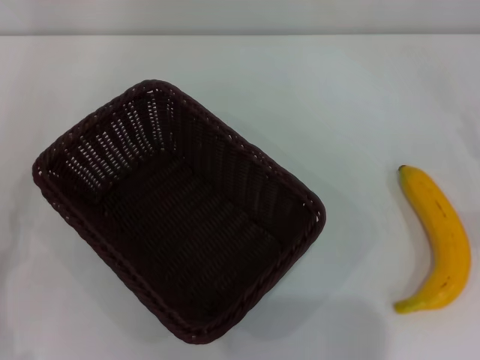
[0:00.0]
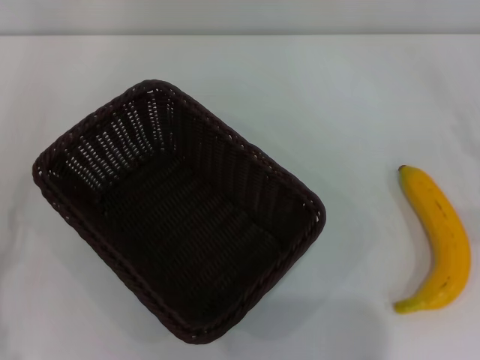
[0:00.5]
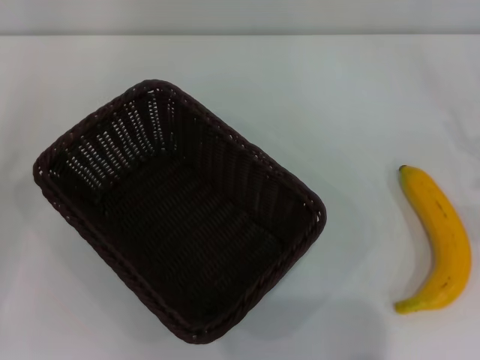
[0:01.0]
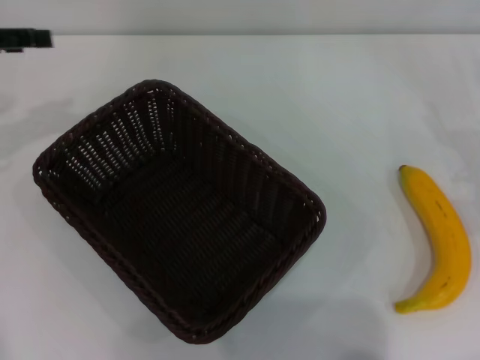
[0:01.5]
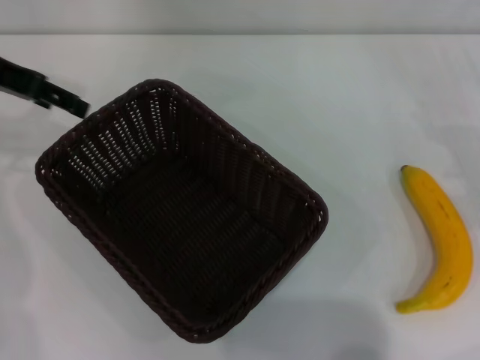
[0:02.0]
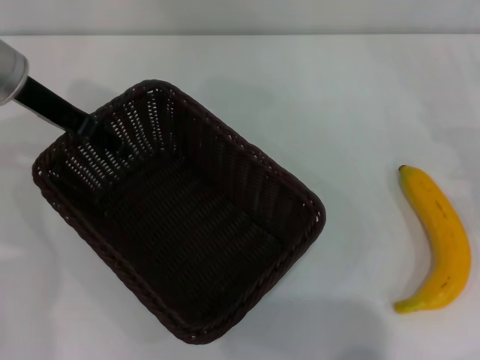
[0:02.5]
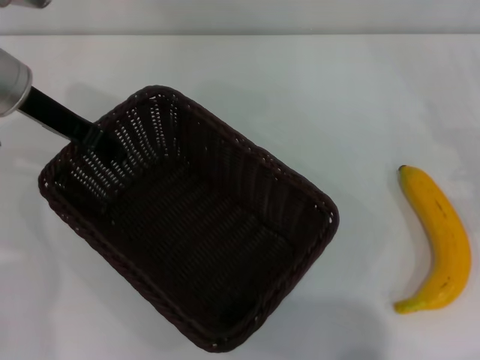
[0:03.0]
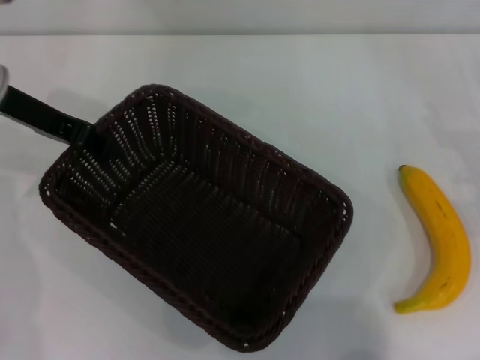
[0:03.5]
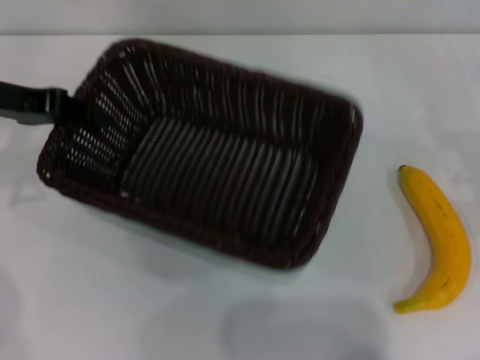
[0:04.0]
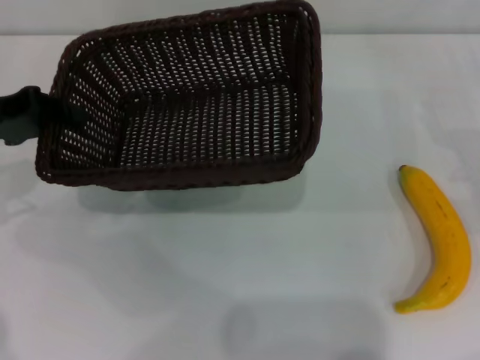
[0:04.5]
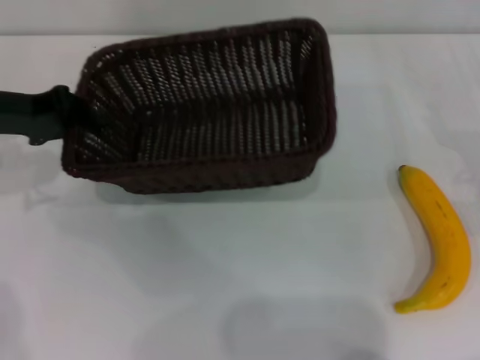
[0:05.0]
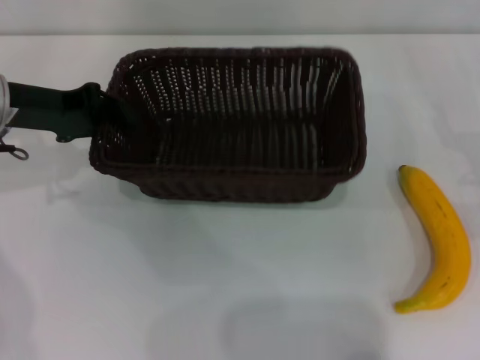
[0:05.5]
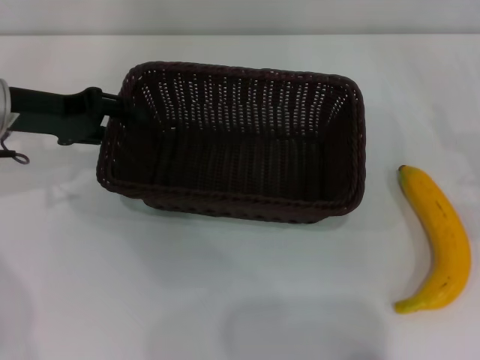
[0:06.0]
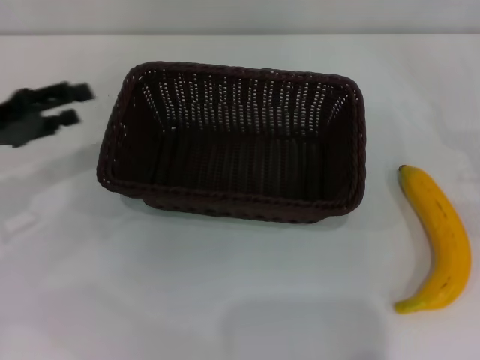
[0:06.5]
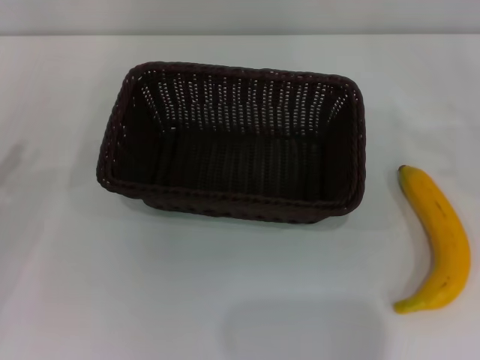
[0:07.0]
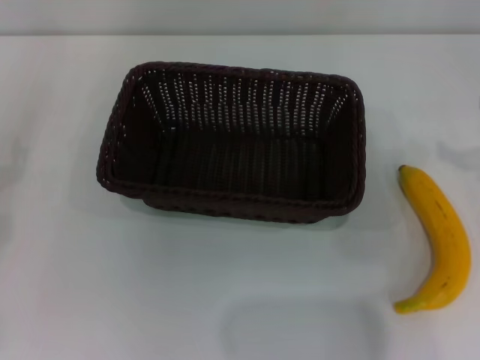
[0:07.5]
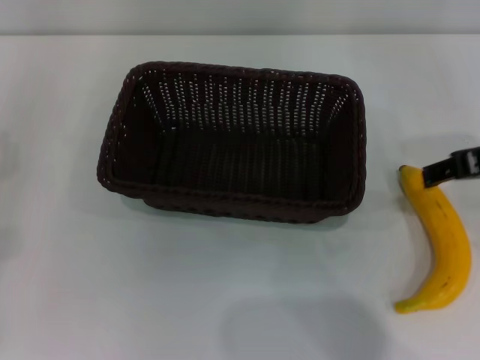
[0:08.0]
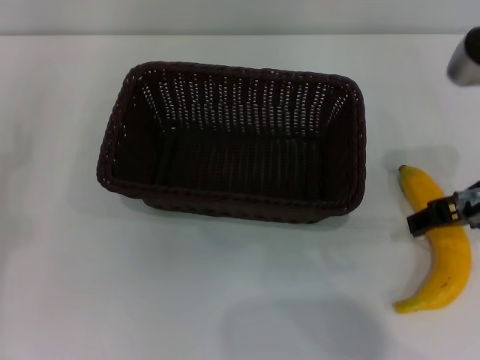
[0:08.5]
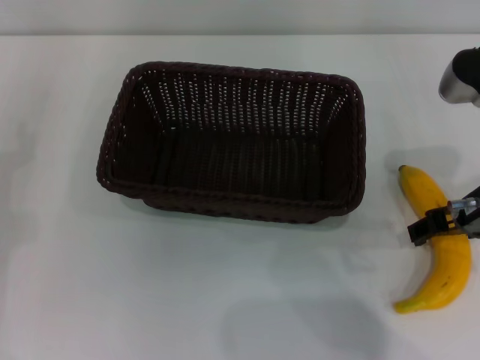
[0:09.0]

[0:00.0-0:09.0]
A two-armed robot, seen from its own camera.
Step, 0.0 to 3.5 s: Pick up the dark basket with the left gripper.
Step, 4.0 to 6.0 s: Place the dark basket in the center of view with the left gripper.
0.0 to 2.0 s: The left gripper shifts about 35 cm forward and upward.
2.0 to 4.5 s: The left gripper moves downward and backward, roughly 10 cm, and closes its fingers.
4.5 to 7.0 s: The right gripper goes approximately 10 cm upward and to the right. The left gripper travels backward, downward and to the left by roughly 15 cm, and opens up.
7.0 to 9.0 s: The right gripper heads to the left, covering about 25 cm.

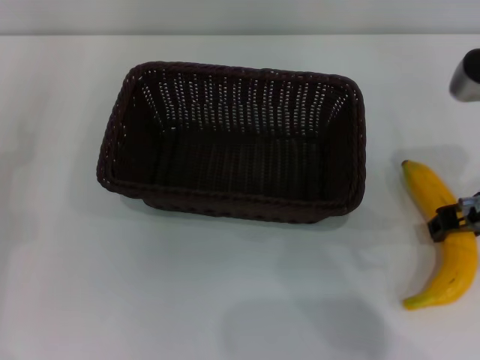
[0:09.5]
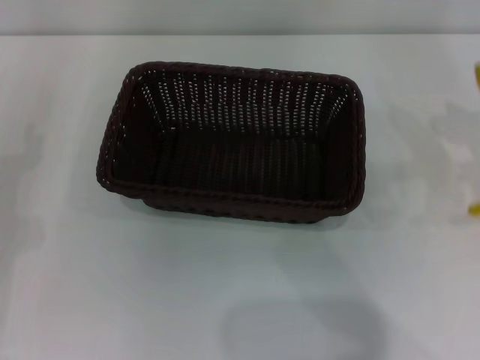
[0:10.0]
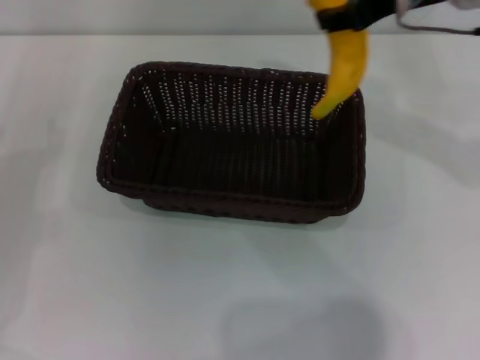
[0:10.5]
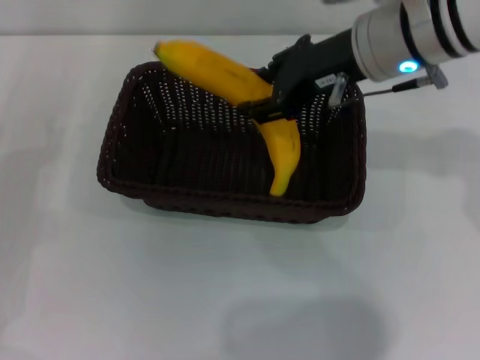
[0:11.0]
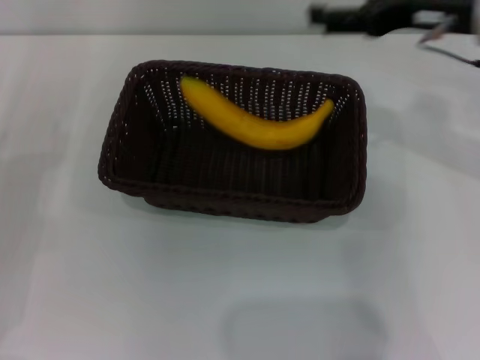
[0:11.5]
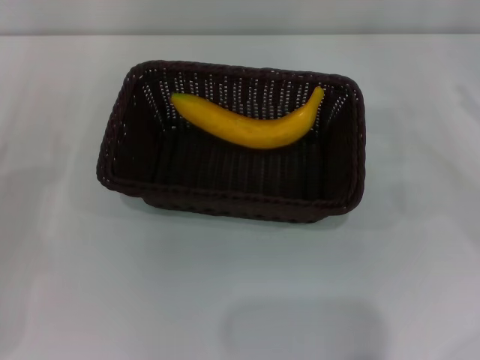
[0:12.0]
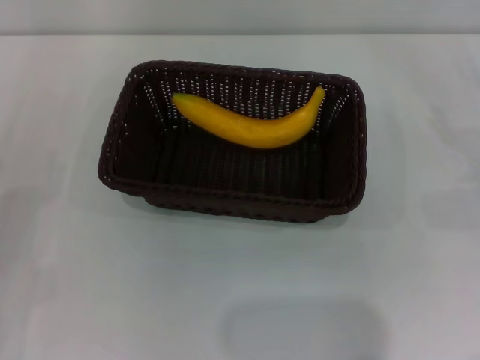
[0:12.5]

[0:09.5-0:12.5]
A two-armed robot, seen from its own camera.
Step, 10.0 to 11.0 s: Place the banana into the dark basket with the right gripper.
9.5 to 11.0 s: The right gripper is displaced to the left, forward and upward by approximately 15 cm.
11.0 to 12.5 s: The left gripper is displaced backward by approximately 5 cm; the right gripper moves to the right and downward, approximately 30 cm, and opens up.

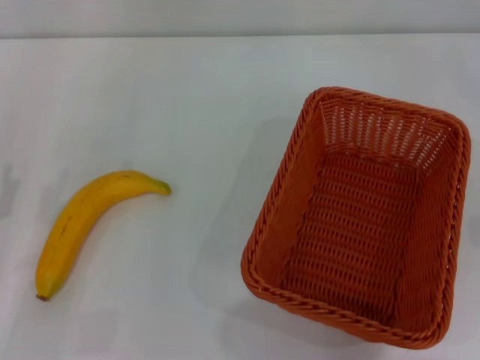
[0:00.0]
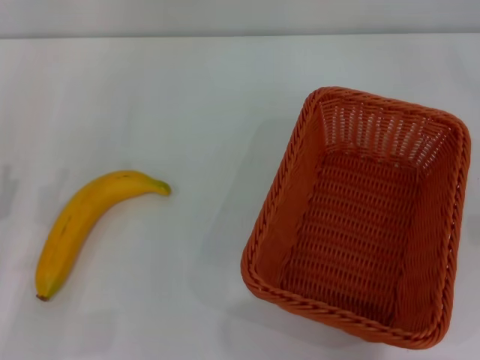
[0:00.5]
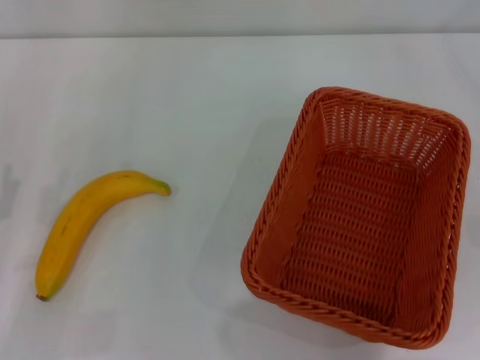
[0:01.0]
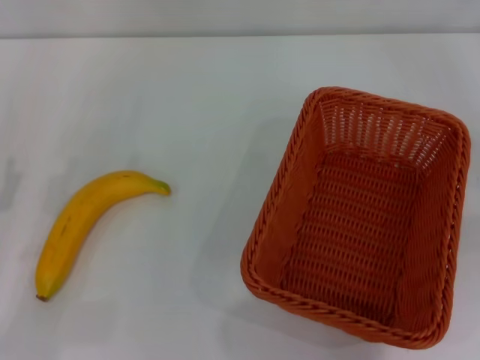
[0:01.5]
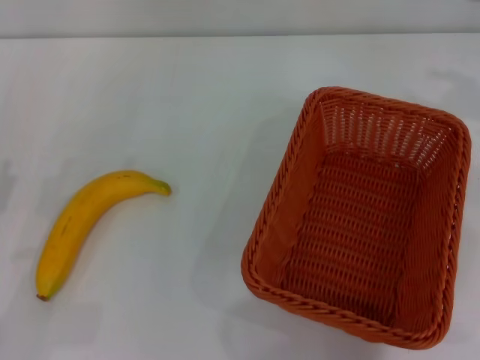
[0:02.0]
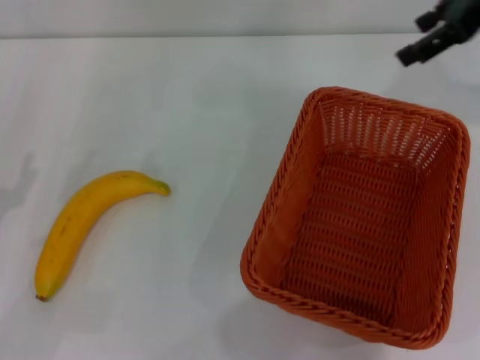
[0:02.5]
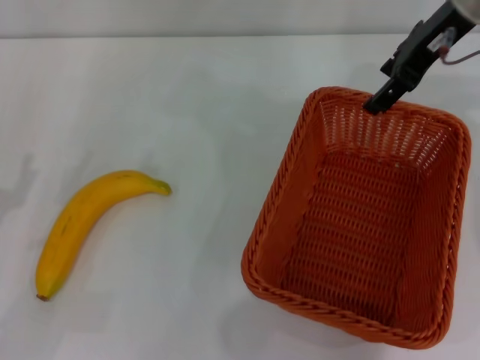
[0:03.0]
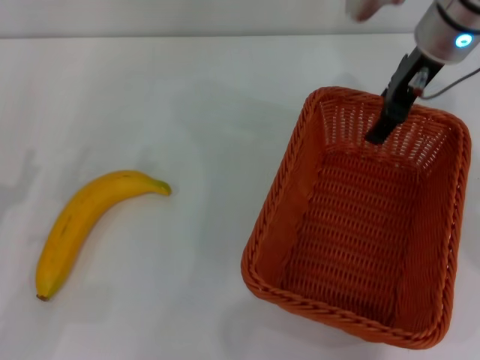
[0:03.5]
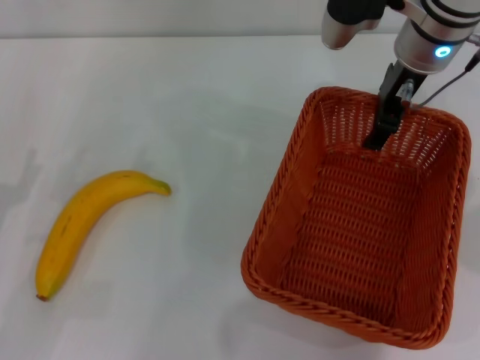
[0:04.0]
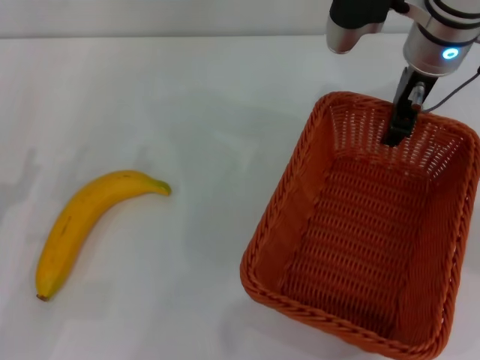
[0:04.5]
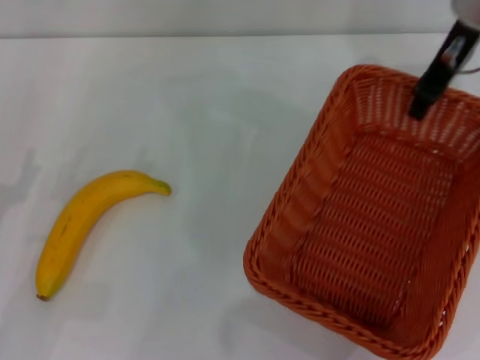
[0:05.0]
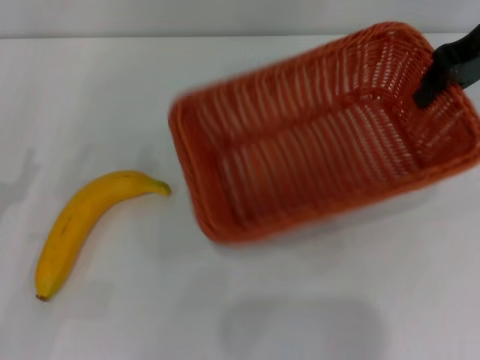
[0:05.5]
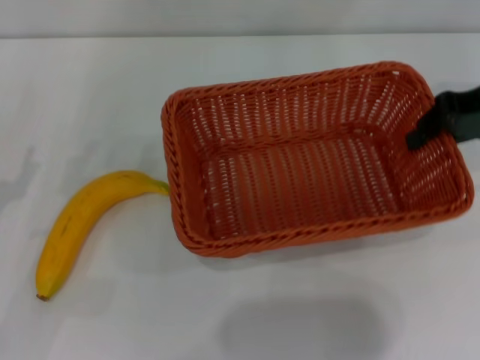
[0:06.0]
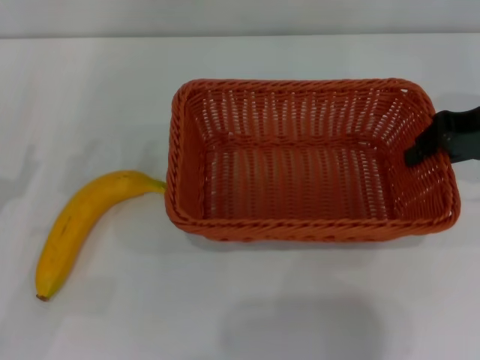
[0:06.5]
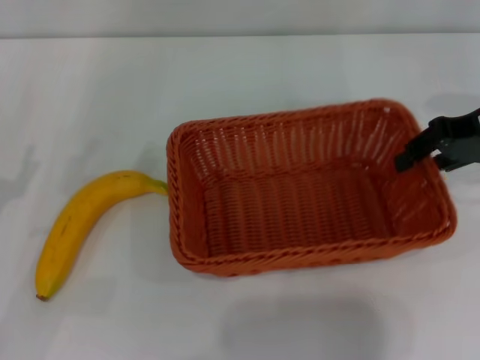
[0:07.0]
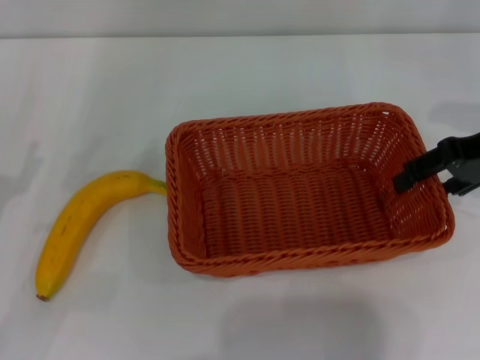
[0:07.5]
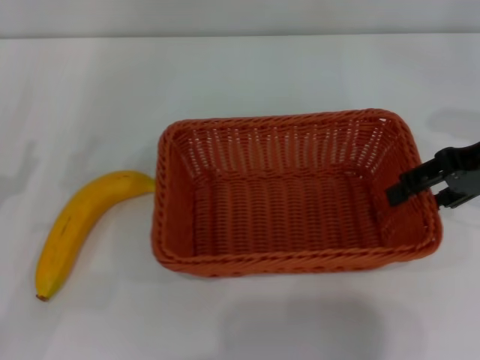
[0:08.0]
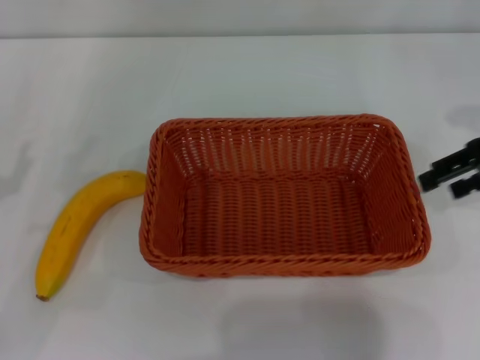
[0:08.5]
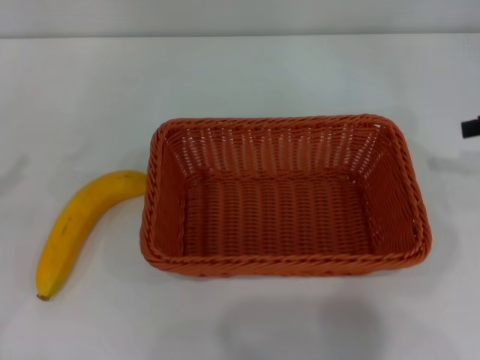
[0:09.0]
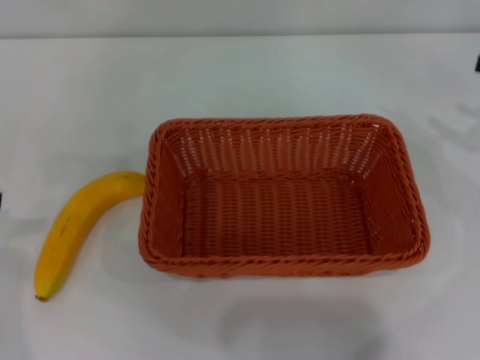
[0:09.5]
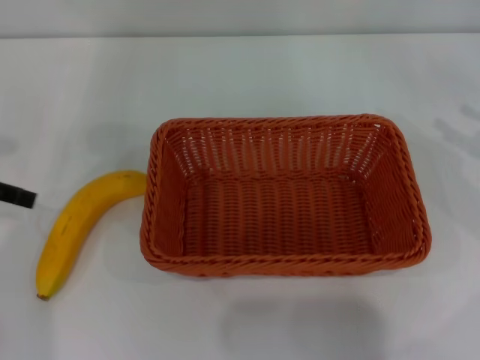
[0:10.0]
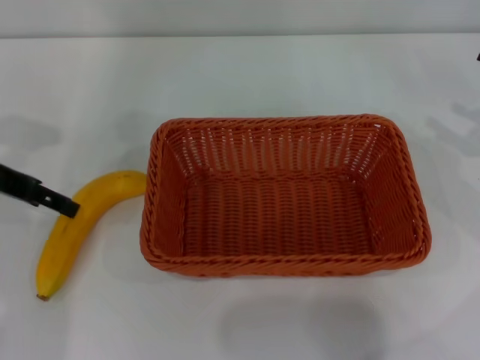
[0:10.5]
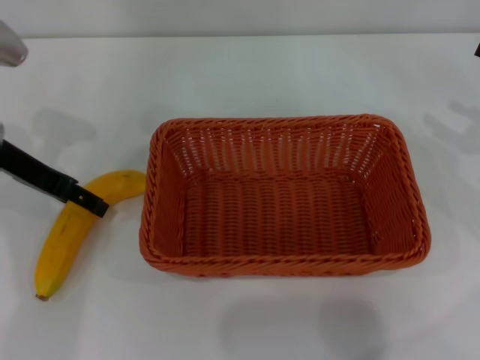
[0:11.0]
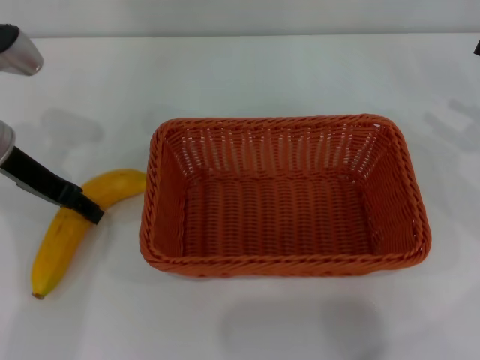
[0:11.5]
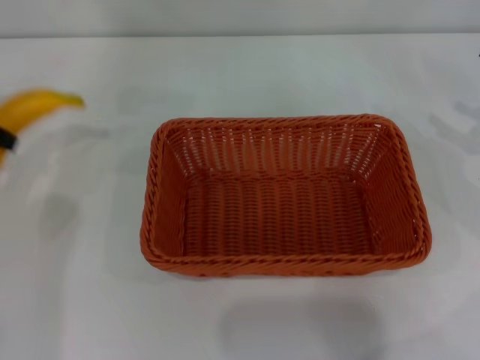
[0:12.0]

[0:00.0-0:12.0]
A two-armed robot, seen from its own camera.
Step, 0.0 to 4.5 s: Pick up the light basket with the right gripper.
Step, 5.0 to 8.0 s: Place the light basket in the center of view with the right gripper.
Step, 8.5 to 11.5 s: Pick up the banana with the left gripper.
2.0 to 4.0 s: The right gripper goes some 20 cm to the left.
4.0 to 6.0 s: The right gripper goes approximately 15 cm to the right and backward, and closes.
6.0 to 8.0 s: The right gripper opens its fingers.
8.0 to 10.0 s: The right gripper shifts some 10 cm to the right, while the left gripper is displaced upward and forward by about 15 cm.
10.0 to 12.0 s: The left gripper is displaced forward by approximately 5 cm, travels to the right and back again, some 10 cm each way, and closes.

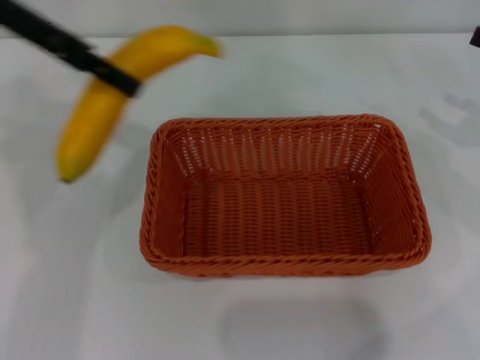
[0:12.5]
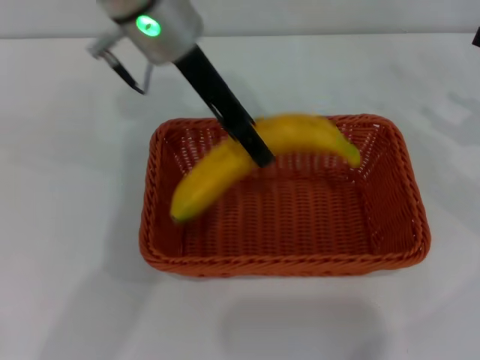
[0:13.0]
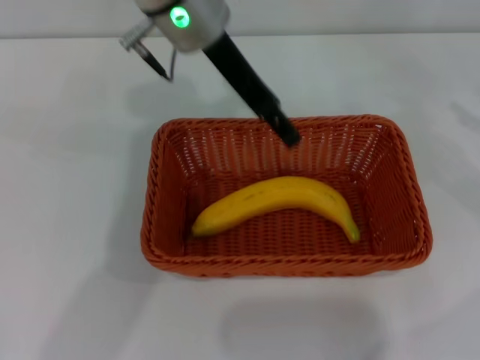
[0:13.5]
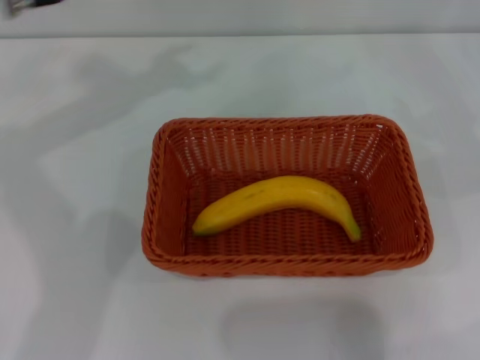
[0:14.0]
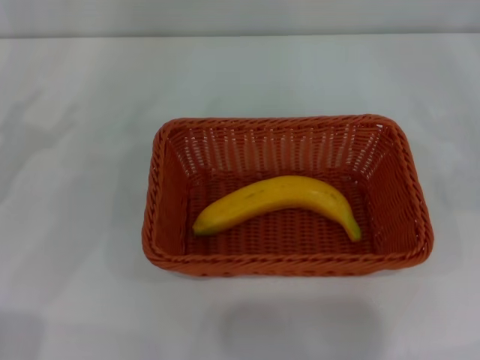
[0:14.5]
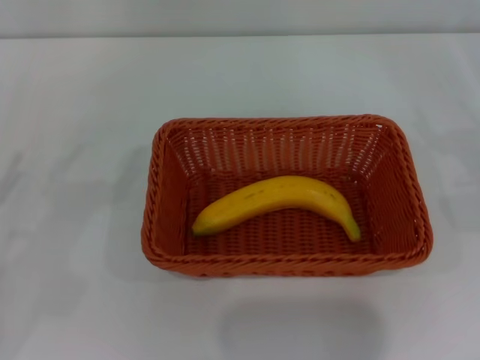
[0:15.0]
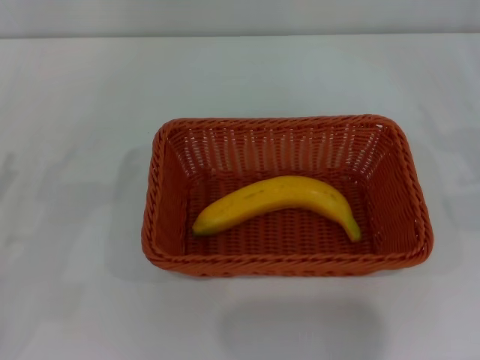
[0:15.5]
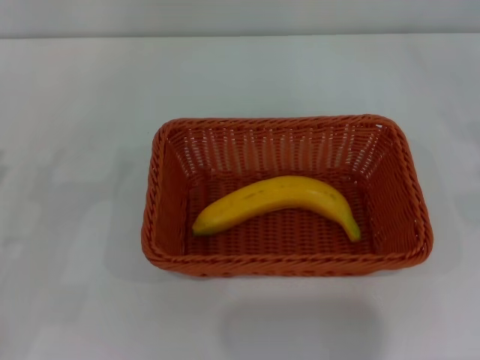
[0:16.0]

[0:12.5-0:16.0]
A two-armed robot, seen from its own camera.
12.5 to 14.5 s: The left gripper goes some 25 cm downward, backward and to the left, and opens its fingers. The right gripper travels to the right by roughly 10 cm.
